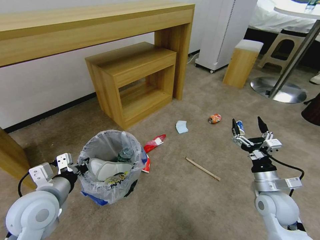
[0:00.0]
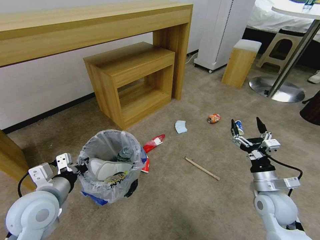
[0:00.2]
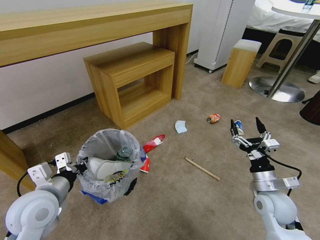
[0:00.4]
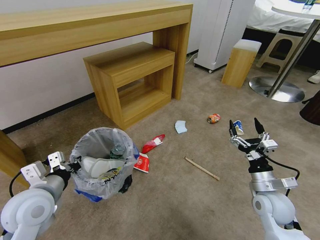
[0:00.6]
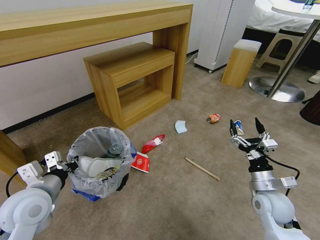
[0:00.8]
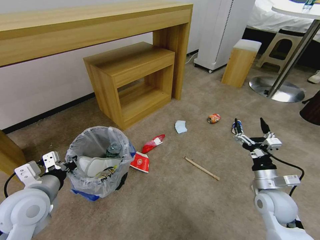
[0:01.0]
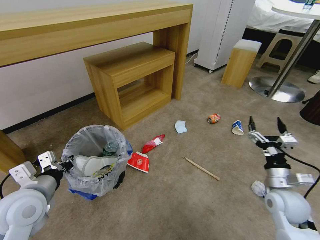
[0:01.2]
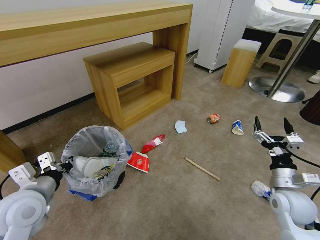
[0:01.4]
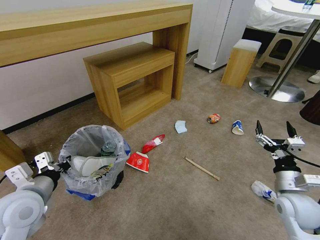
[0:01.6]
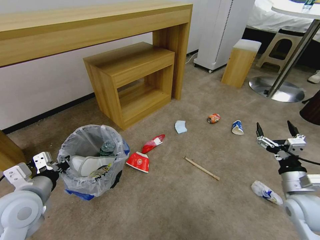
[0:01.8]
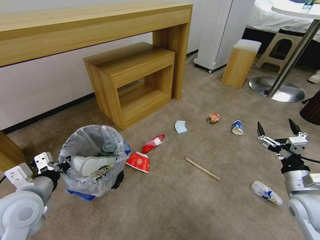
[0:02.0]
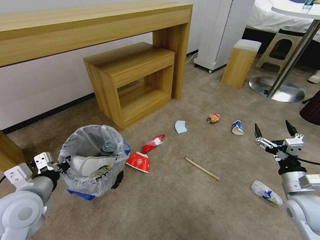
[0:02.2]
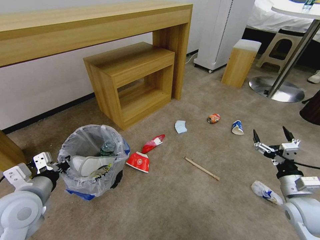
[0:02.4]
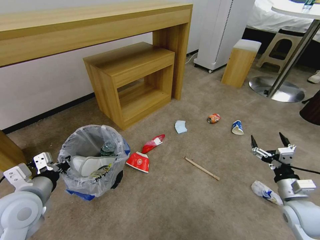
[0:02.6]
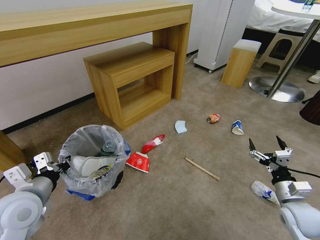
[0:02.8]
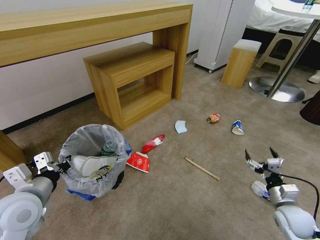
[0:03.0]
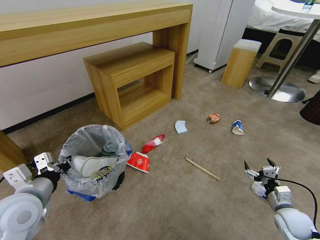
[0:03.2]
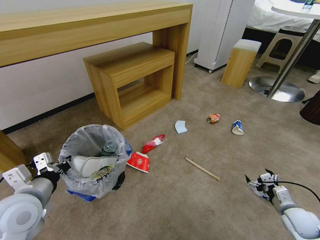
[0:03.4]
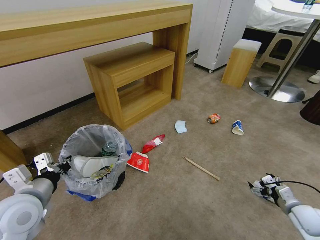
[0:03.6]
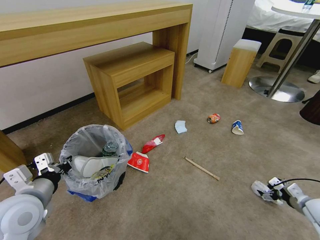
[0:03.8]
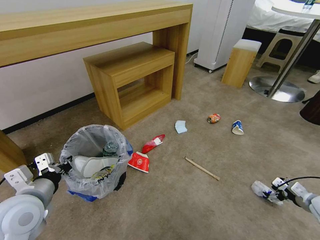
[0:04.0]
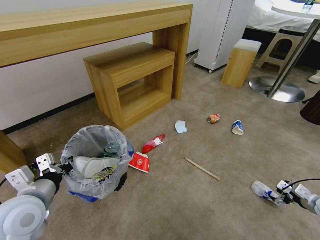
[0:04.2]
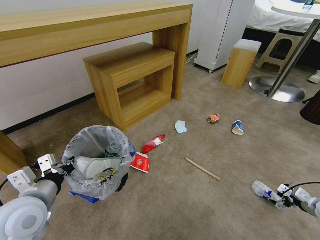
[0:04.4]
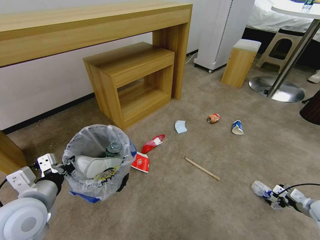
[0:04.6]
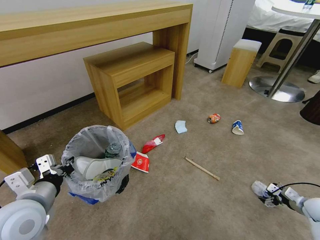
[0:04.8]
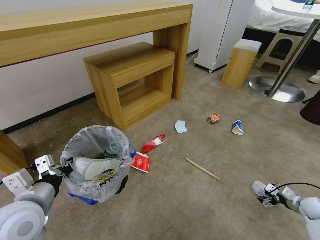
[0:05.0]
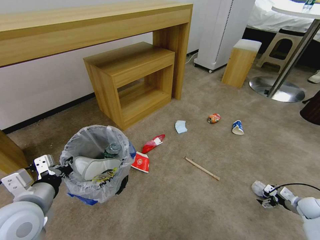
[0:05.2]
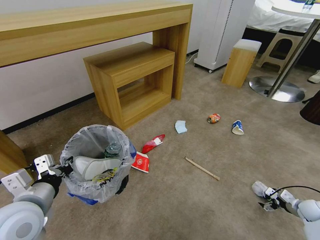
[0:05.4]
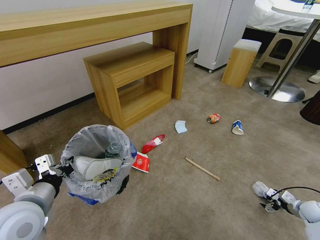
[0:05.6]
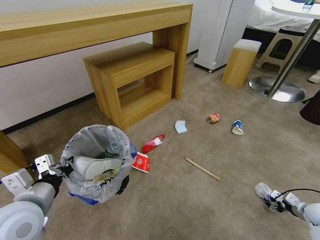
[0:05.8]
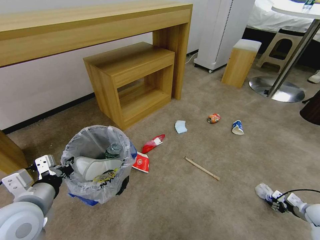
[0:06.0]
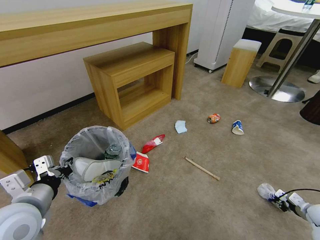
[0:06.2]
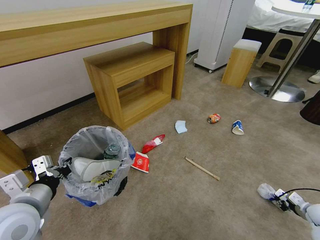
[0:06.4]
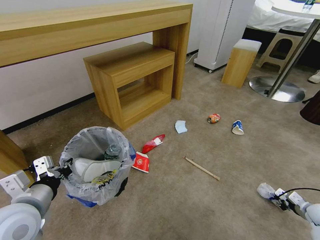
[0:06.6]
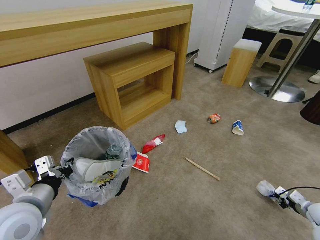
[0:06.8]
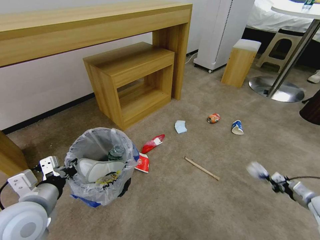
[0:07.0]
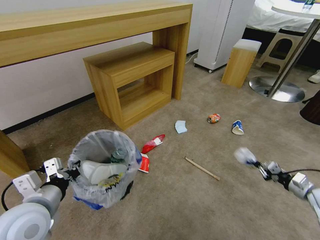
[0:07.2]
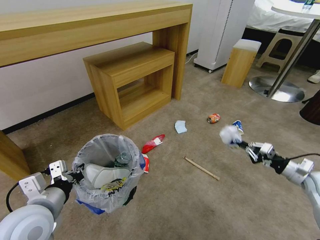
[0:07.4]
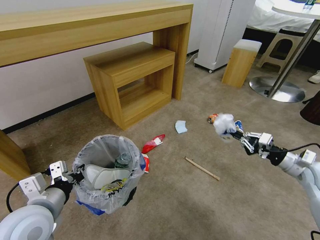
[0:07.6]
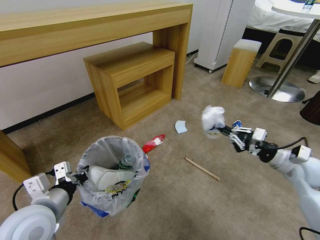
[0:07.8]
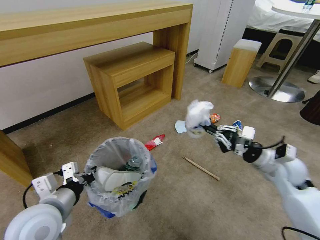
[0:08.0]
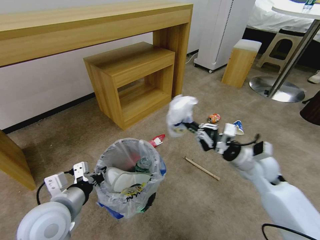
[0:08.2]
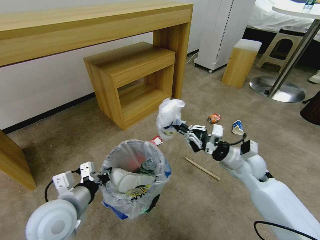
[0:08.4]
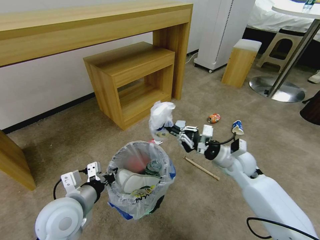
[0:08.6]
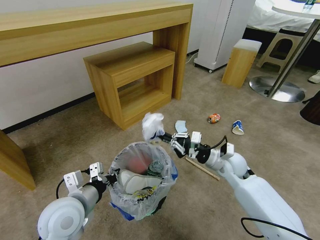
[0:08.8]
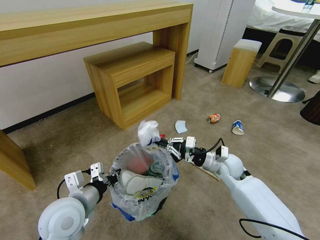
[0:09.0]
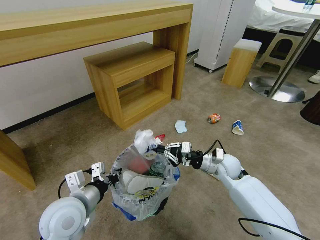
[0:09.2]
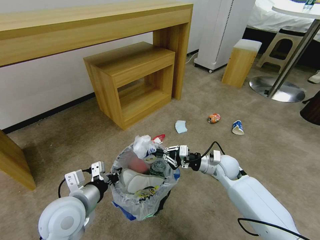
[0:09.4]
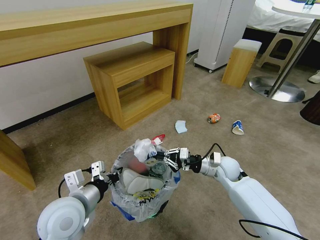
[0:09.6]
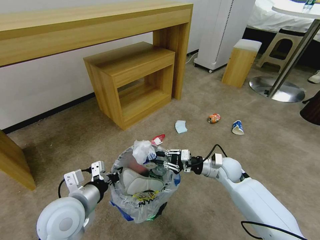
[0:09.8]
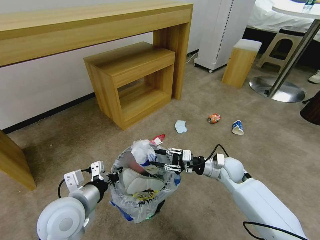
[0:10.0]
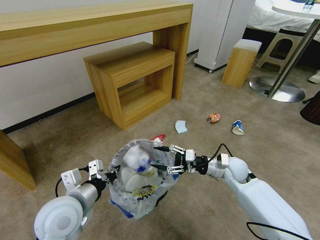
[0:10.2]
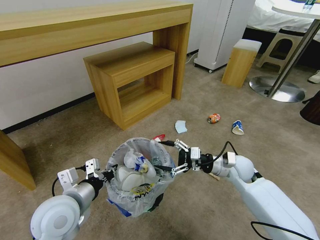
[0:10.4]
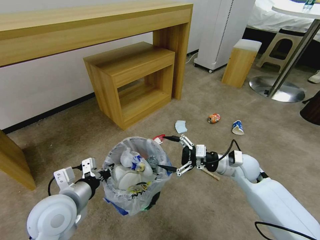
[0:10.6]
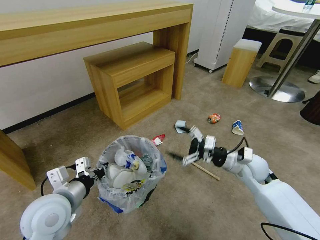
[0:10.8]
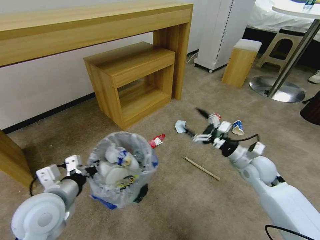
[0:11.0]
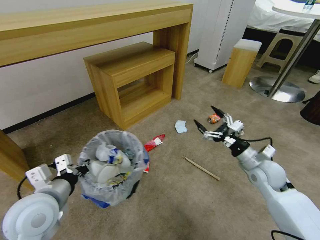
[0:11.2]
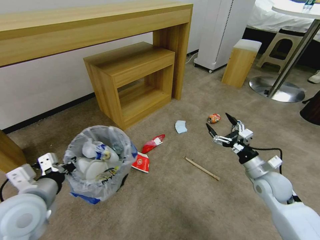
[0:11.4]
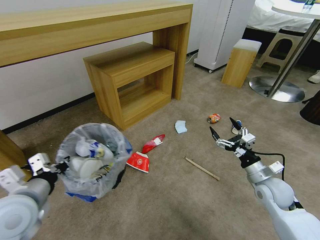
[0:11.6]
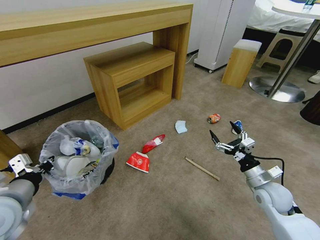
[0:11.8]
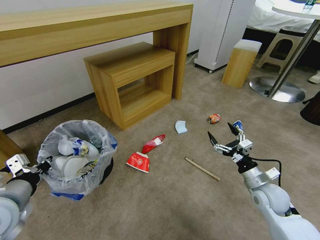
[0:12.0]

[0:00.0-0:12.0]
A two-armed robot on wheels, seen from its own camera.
Task of the whole recording: Pick up the trash bin and place the garbage on the floor into it.
0:00.0 to 0:01.6: There are only small adjustments of the grippers.
0:01.6 to 0:03.0: The right gripper travels downward by approximately 10 cm.
0:03.0 to 0:04.4: The right gripper is displaced to the right by about 20 cm.
0:04.4 to 0:06.0: The right gripper shifts some 5 cm downward, and closes.
0:06.0 to 0:07.6: The right gripper moves upward and to the left, about 25 cm, and closes.
0:07.6 to 0:09.0: The right gripper heads to the left, covering roughly 25 cm. The left gripper heads to the right, covering roughly 5 cm.
0:09.0 to 0:10.4: The right gripper opens up.
0:10.4 to 0:12.0: The left gripper travels to the left by approximately 10 cm; the right gripper goes roughly 15 cm to the right and backward.

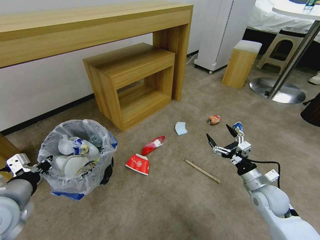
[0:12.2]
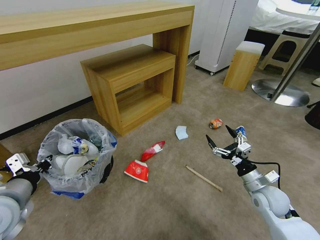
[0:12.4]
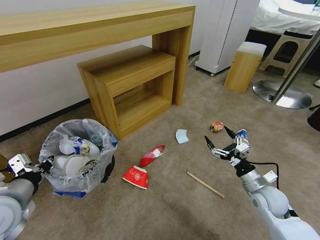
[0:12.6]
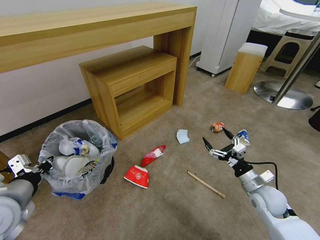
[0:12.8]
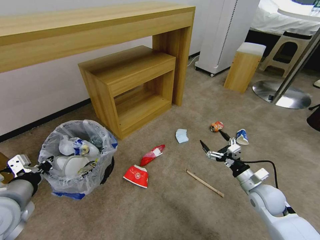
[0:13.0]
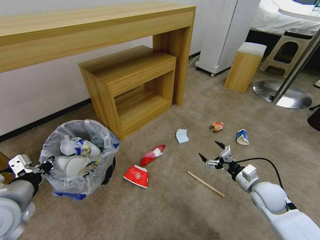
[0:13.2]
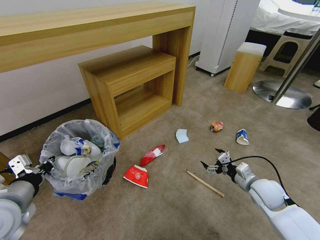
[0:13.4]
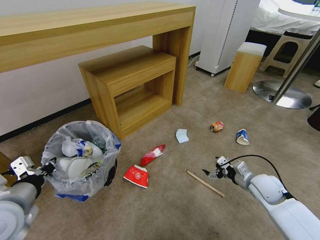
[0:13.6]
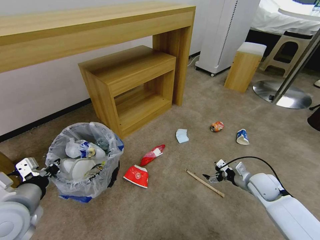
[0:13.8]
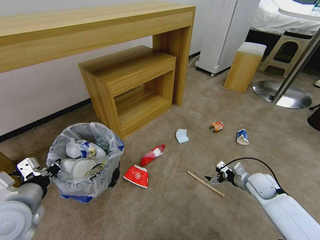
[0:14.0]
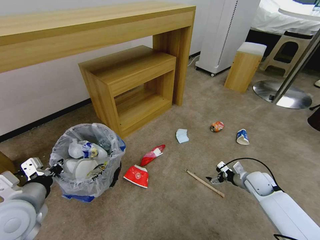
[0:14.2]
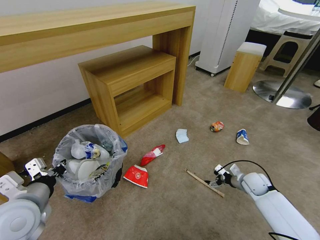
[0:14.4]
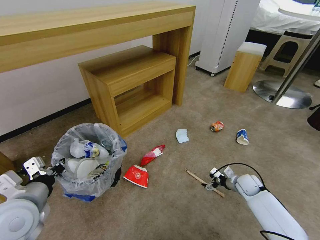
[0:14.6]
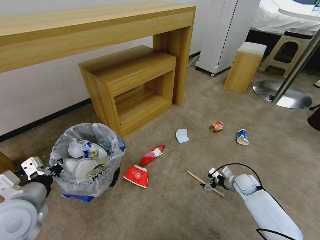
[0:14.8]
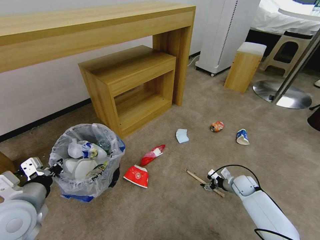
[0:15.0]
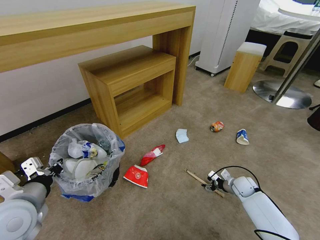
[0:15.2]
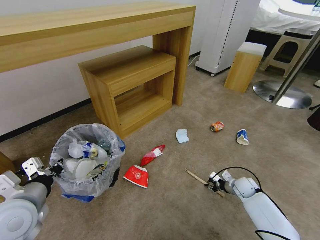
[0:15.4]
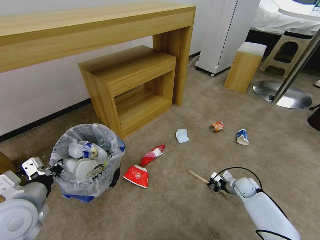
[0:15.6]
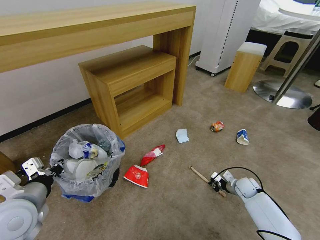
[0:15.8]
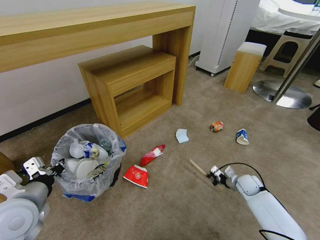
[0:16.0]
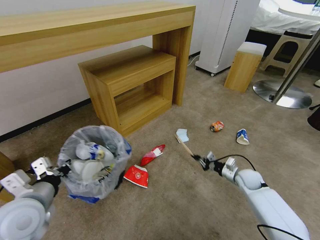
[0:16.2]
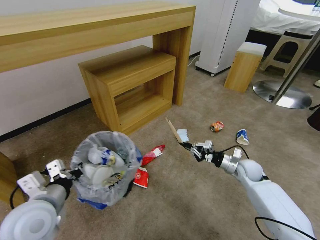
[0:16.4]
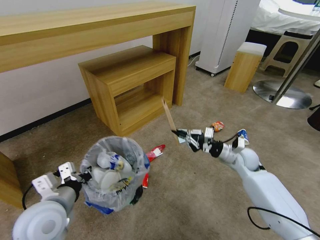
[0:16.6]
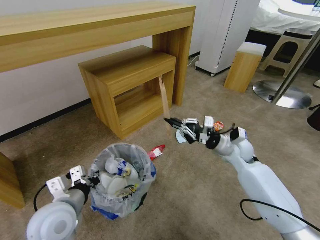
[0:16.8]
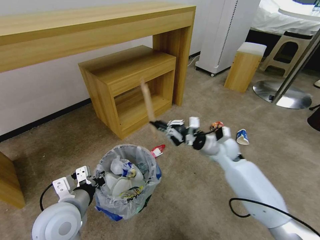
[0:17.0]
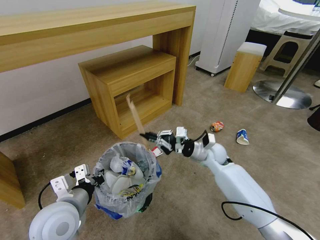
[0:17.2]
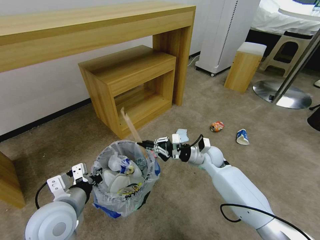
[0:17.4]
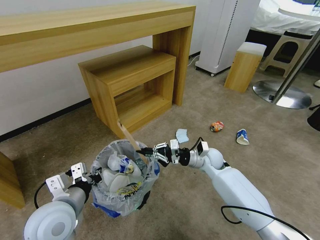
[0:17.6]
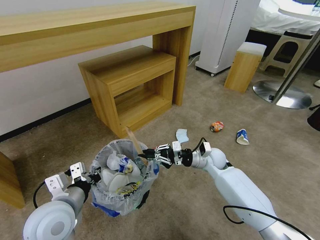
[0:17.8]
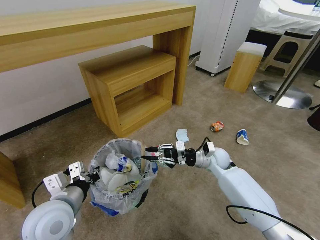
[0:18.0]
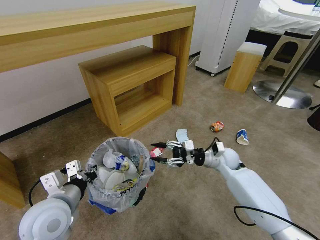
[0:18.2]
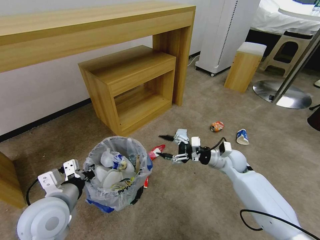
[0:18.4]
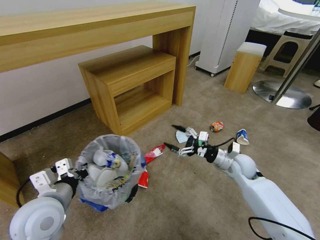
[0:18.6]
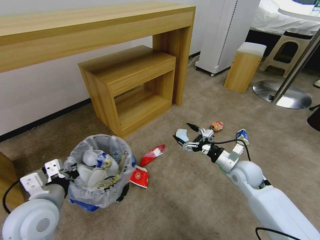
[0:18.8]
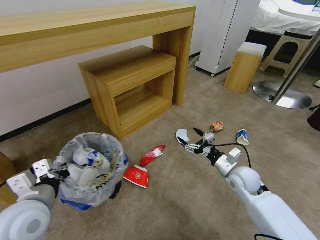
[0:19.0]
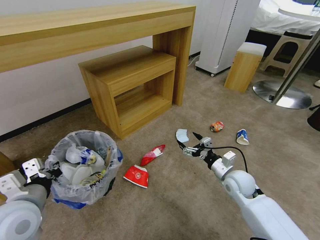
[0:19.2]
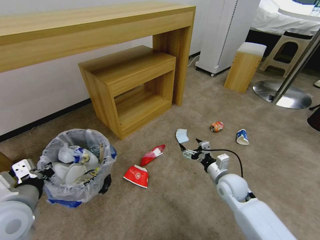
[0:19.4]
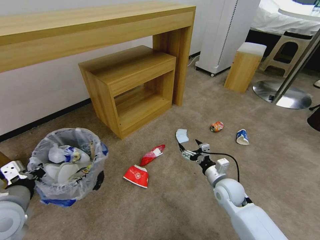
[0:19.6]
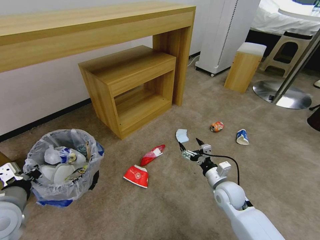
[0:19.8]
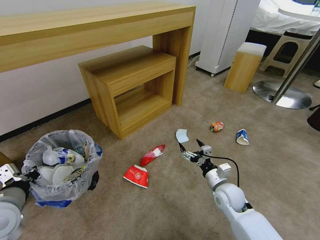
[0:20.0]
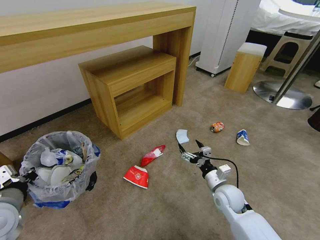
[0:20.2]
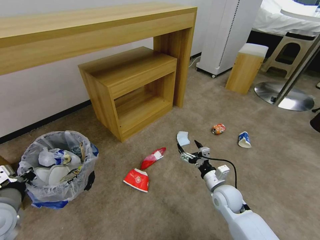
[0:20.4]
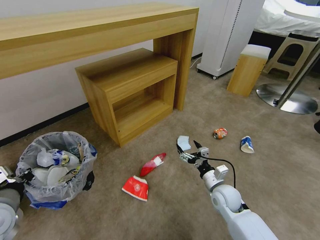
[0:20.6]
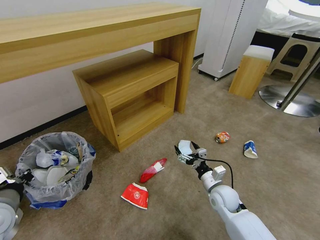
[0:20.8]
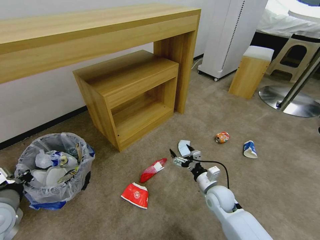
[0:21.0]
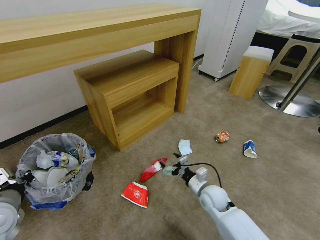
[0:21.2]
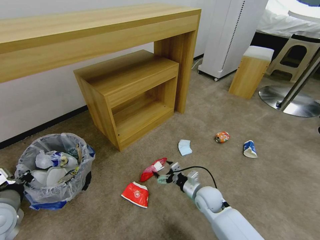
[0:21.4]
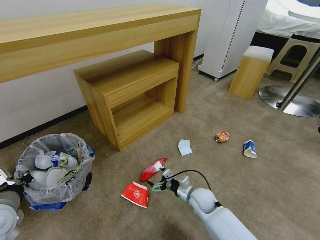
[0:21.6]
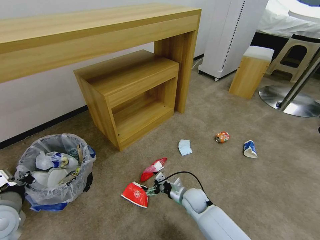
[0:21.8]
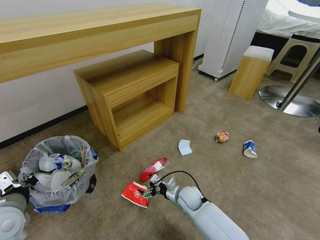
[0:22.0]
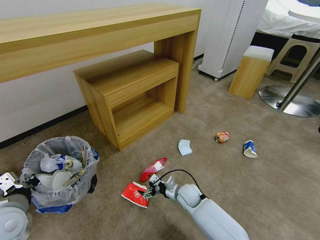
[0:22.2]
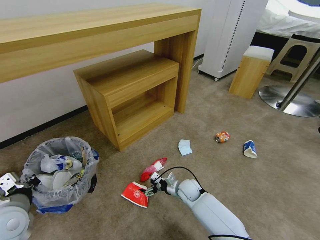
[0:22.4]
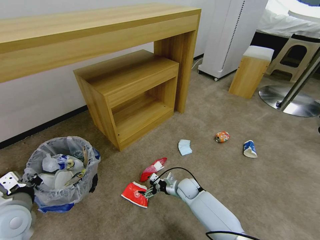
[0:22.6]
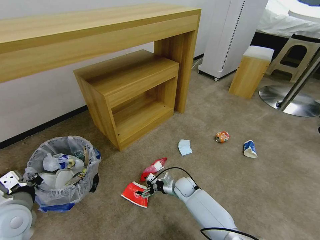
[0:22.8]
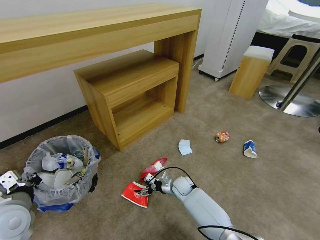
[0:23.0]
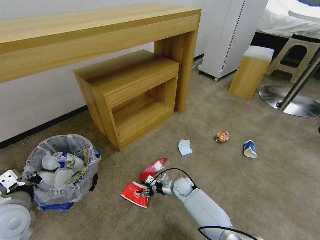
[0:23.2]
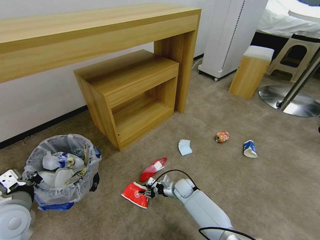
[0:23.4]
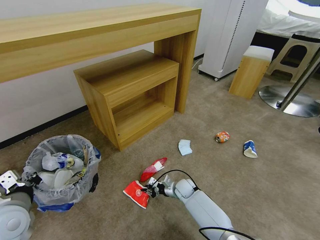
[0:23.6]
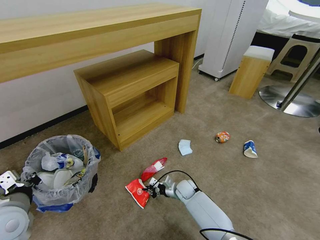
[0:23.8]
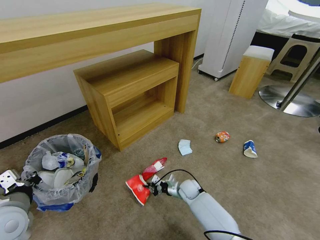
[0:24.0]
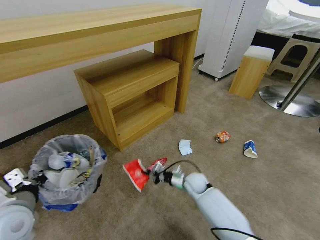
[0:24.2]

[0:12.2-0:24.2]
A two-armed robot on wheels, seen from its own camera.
Task of the whole recording: Pick up the trash bin and place the garbage on the floor into it.
0:12.2 to 0:13.8: The right gripper moves forward, approximately 5 cm.
0:13.8 to 0:15.2: The right gripper travels downward by some 10 cm, and closes up.
0:15.2 to 0:16.6: The left gripper heads to the right, covering roughly 5 cm. The right gripper heads upward, covering roughly 15 cm, and closes.
0:16.6 to 0:18.2: The right gripper heads to the left, covering roughly 5 cm, and opens.
0:18.2 to 0:19.8: The right gripper is displaced backward by some 10 cm, and opens up. Meanwhile the left gripper goes some 10 cm to the left.
0:19.8 to 0:21.2: The right gripper moves roughly 5 cm.
0:21.2 to 0:22.6: The right gripper travels downward, to the left and forward by approximately 15 cm.
0:22.6 to 0:24.2: The right gripper is displaced upward by some 5 cm, and closes up.
